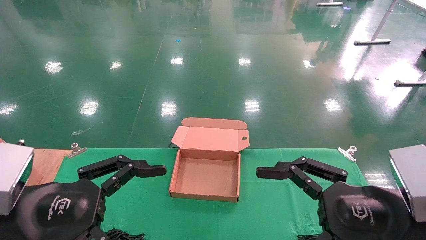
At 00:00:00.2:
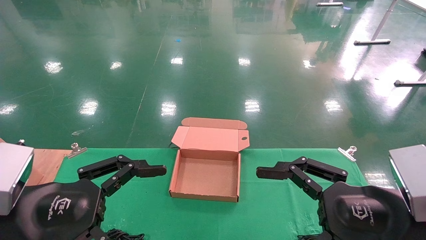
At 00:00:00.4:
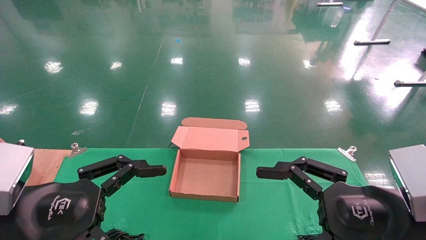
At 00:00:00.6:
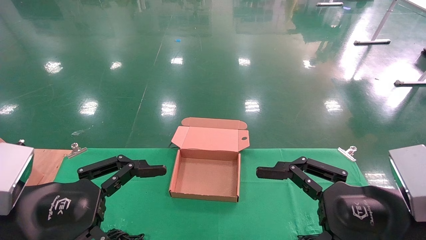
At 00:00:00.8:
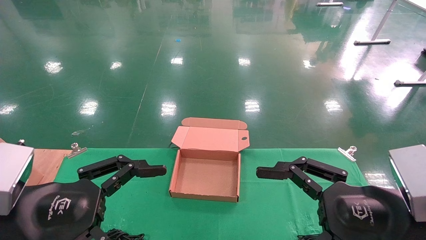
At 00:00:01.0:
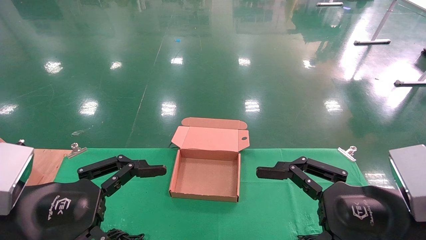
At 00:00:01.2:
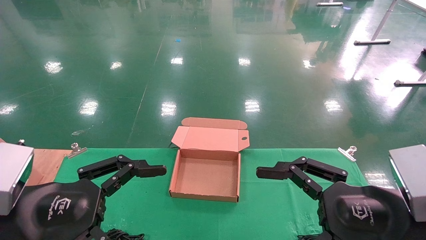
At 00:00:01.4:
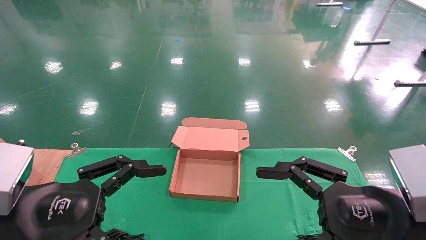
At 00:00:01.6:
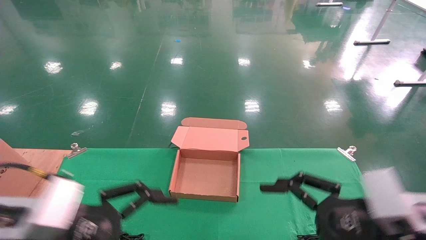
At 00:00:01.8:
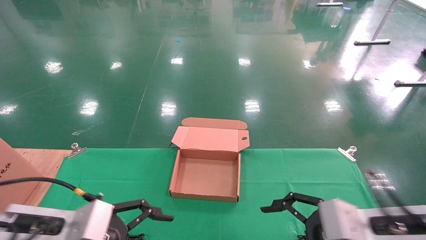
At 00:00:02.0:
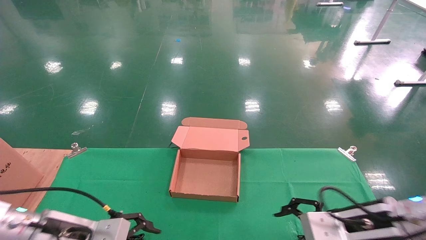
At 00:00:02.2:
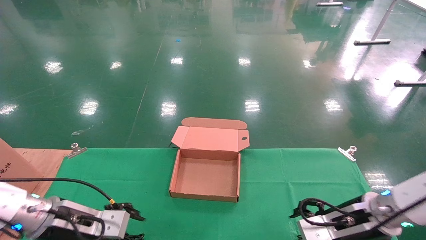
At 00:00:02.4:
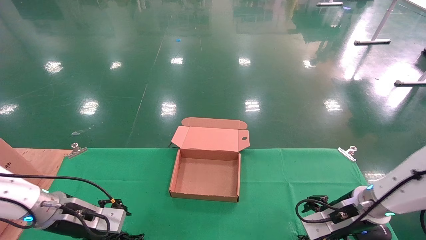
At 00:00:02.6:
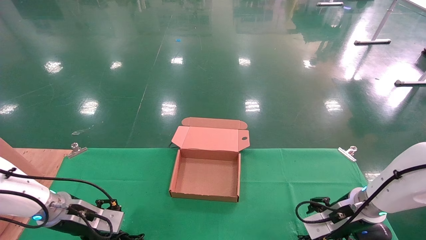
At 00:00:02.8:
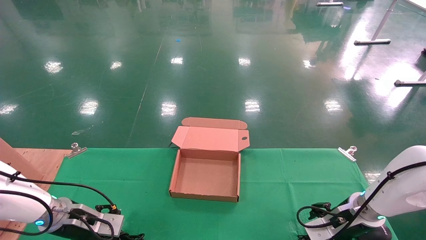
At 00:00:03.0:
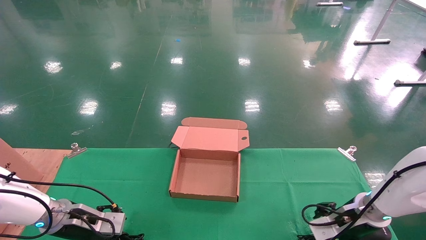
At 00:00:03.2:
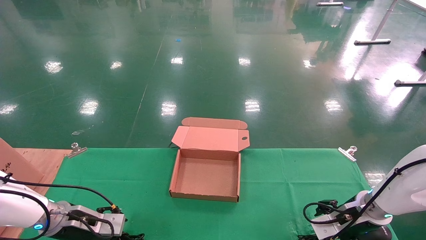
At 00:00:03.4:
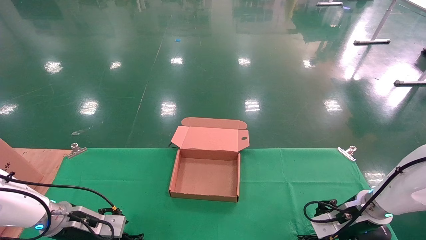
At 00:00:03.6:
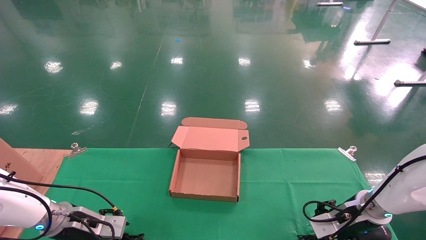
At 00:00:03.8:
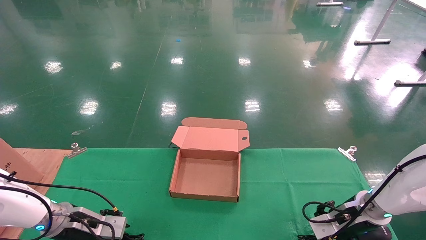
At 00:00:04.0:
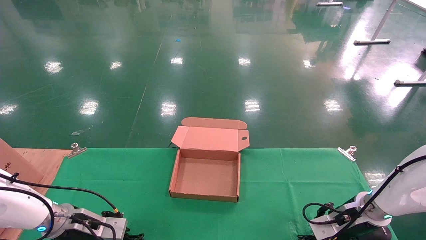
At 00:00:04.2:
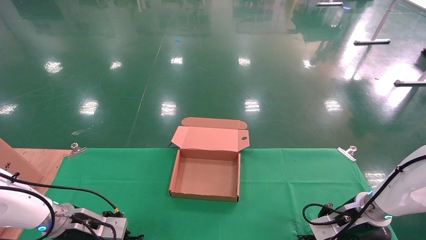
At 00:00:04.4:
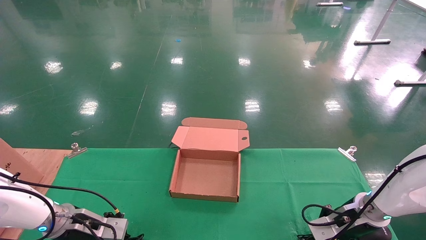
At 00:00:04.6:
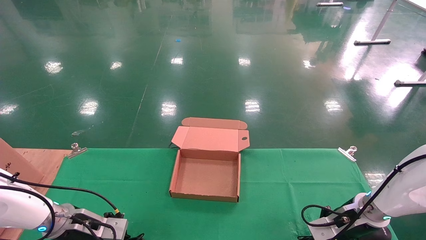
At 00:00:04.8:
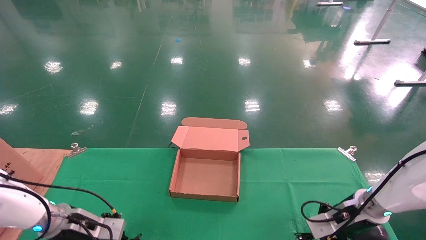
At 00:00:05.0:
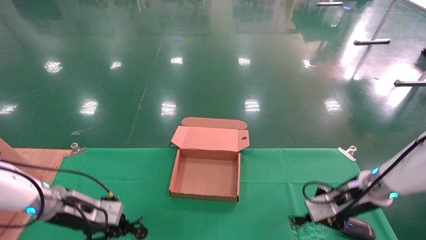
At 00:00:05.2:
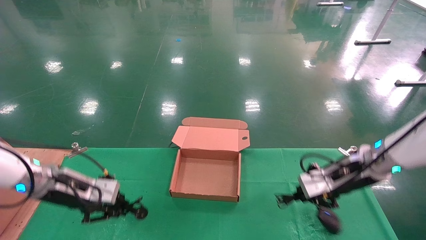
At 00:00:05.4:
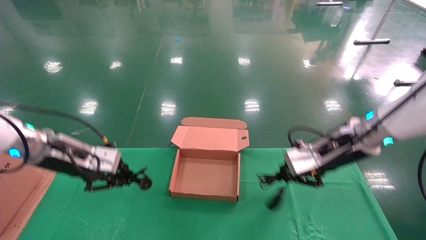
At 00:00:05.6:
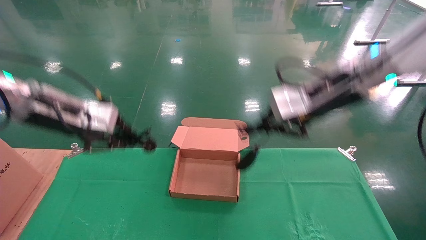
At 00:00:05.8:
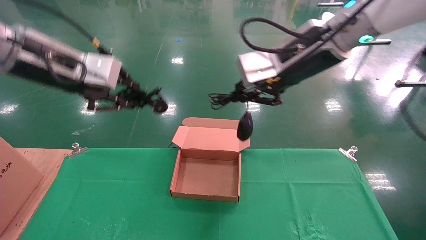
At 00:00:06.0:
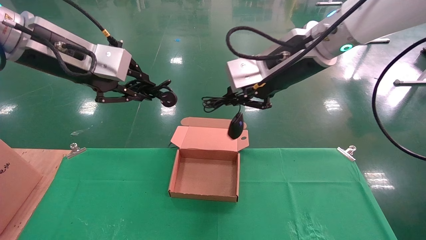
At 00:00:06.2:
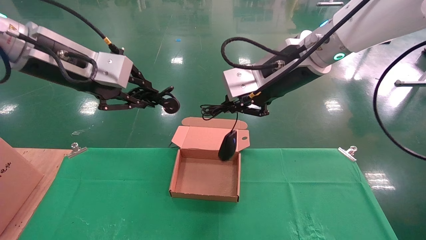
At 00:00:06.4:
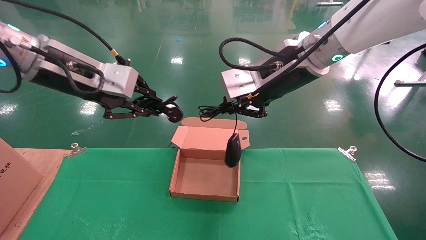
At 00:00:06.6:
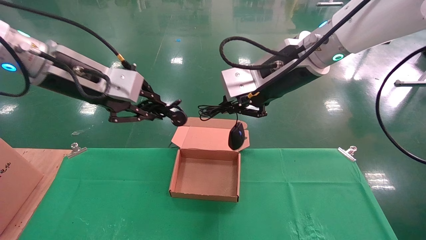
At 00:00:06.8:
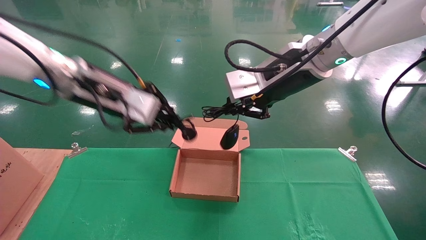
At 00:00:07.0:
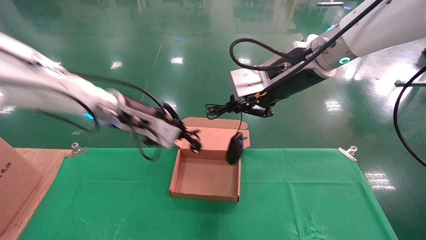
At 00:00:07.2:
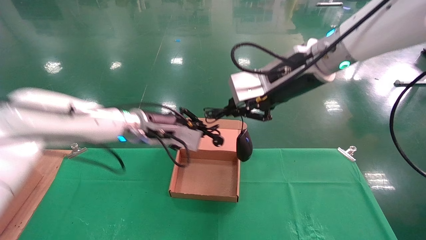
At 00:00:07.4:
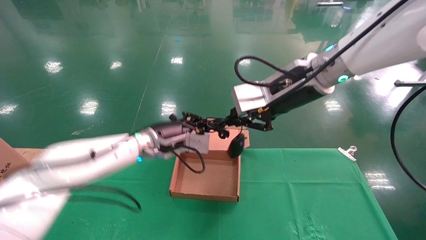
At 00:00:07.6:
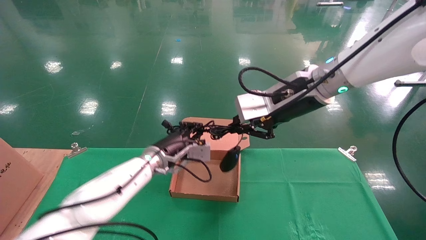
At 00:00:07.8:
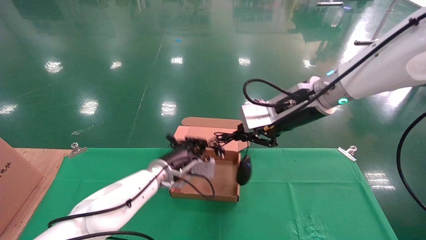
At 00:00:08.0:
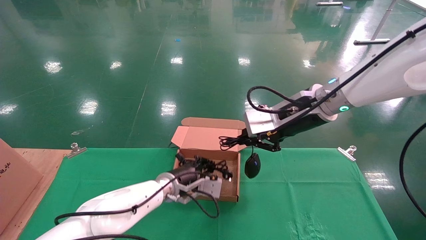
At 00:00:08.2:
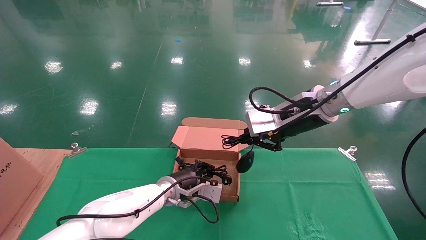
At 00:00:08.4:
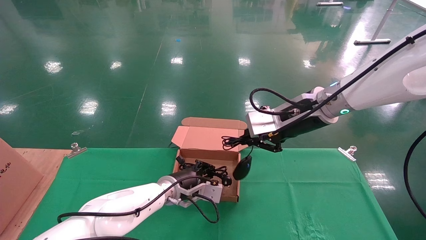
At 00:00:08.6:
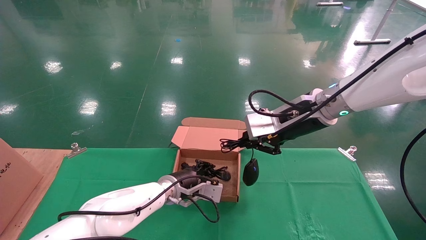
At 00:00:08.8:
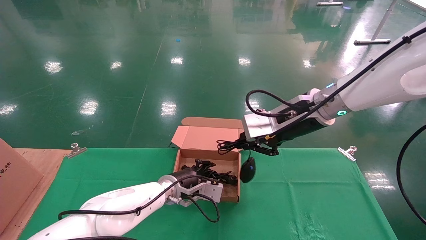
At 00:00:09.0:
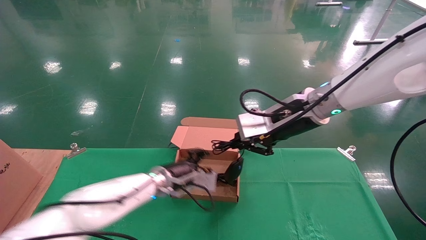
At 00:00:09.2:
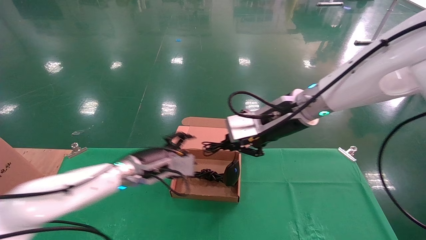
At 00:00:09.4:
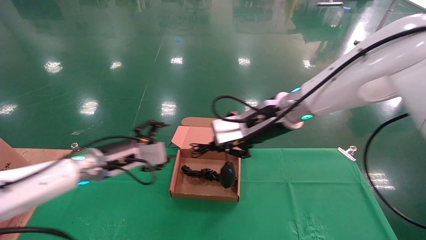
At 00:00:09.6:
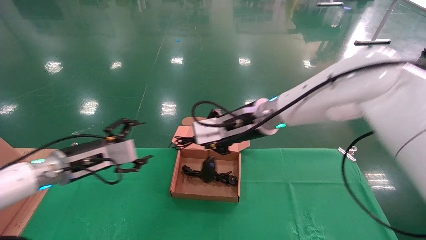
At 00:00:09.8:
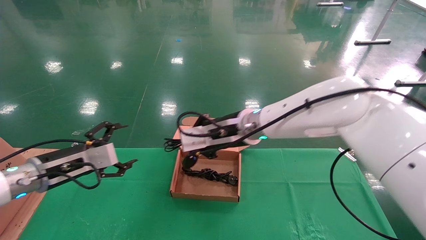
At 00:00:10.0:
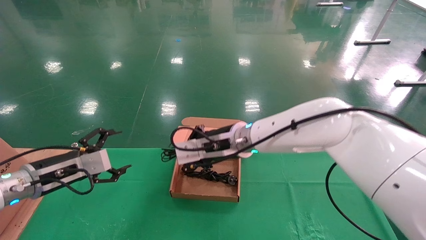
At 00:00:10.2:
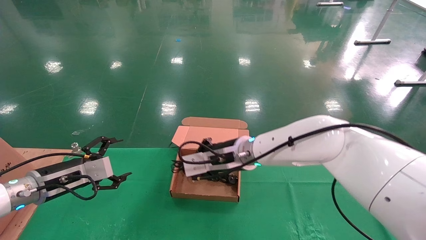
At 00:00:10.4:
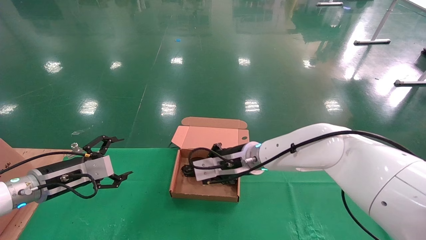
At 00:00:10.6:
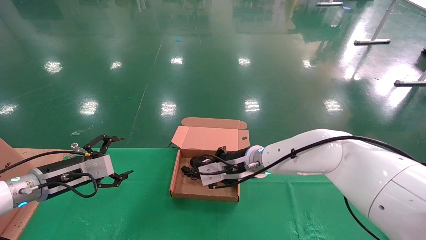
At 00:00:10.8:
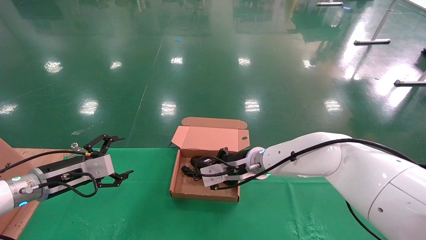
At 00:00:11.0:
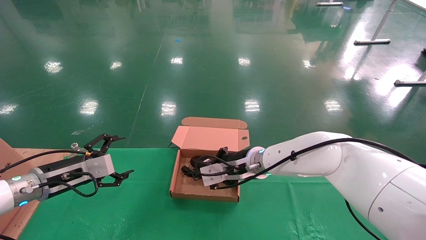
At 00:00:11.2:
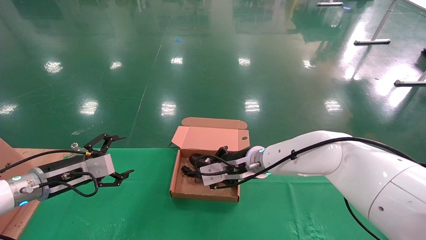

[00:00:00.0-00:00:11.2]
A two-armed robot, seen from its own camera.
Step, 00:00:02.4 to 00:00:05.2: Grab and lift both the mouse and power cord from the accessory packaging area at the same time.
00:00:00.0 to 00:00:01.6: There are only small adjustments of the grippers.
00:00:01.6 to 00:00:03.2: The left gripper travels forward, downward and to the left by some 25 cm, while the right gripper heads forward and downward, covering some 20 cm.
00:00:03.2 to 00:00:04.8: The left gripper closes up. The right gripper closes.
00:00:04.8 to 00:00:06.4: The right gripper goes approximately 35 cm upward and to the left. Meanwhile the left gripper heads upward, covering some 35 cm.
00:00:06.4 to 00:00:08.0: The right gripper is displaced downward by some 10 cm. Meanwhile the left gripper moves downward, forward and to the right, roughly 35 cm.
00:00:08.0 to 00:00:09.6: The left gripper heads to the left, upward and backward, covering some 25 cm, and opens up. The right gripper heads to the left, covering some 10 cm.
00:00:09.6 to 00:00:11.2: The right gripper travels downward by roughly 10 cm. Meanwhile the left gripper goes some 5 cm to the left.

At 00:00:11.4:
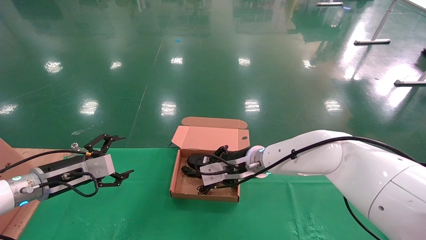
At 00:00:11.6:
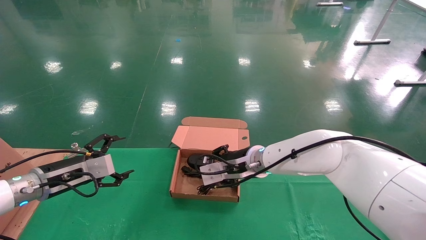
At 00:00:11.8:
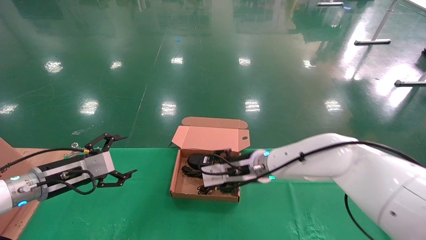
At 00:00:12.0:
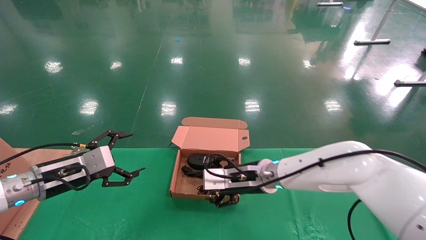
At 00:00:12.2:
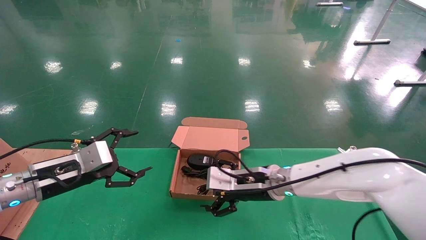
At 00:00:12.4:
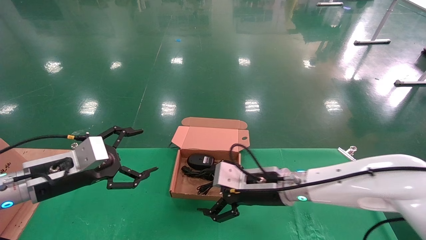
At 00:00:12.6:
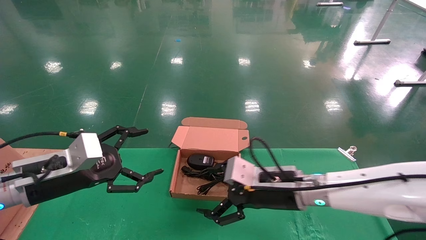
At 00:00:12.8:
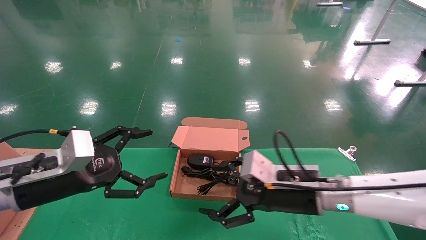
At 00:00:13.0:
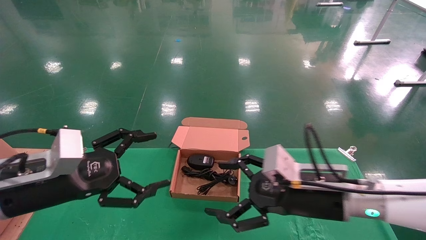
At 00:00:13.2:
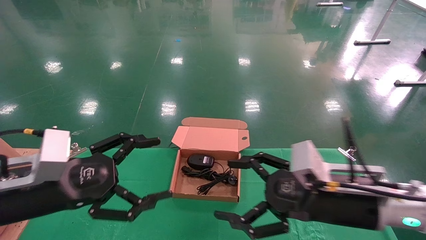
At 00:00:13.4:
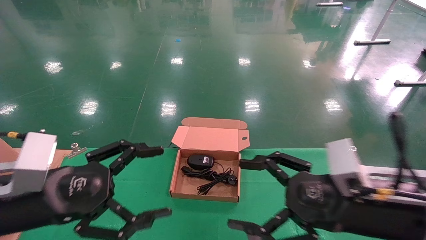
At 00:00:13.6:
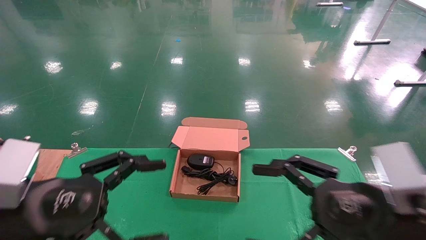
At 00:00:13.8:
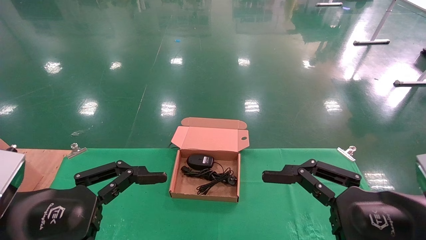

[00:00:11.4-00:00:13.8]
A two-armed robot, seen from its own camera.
00:00:11.4 to 00:00:12.6: The left gripper goes approximately 10 cm backward, to the right and upward, while the right gripper goes approximately 10 cm backward and to the right, and opens.
00:00:12.6 to 00:00:13.8: The left gripper travels backward by about 15 cm, while the right gripper goes roughly 20 cm backward and to the right.
